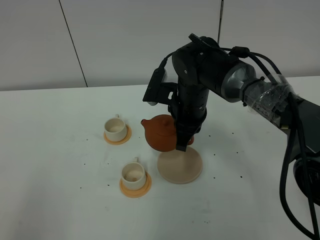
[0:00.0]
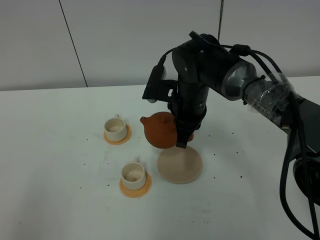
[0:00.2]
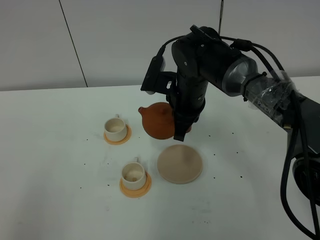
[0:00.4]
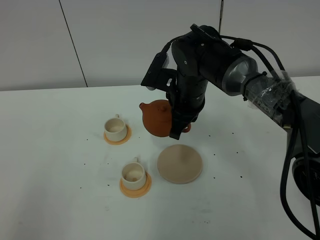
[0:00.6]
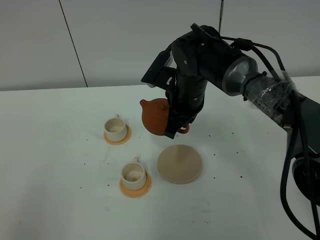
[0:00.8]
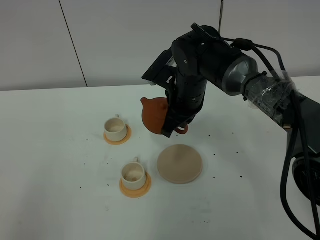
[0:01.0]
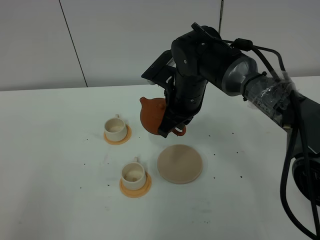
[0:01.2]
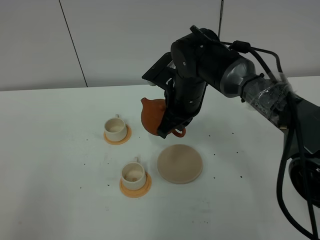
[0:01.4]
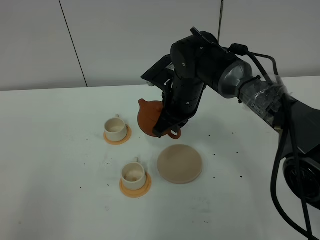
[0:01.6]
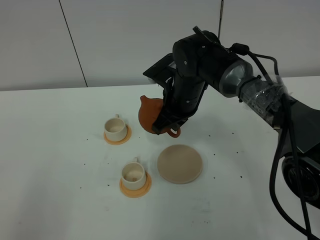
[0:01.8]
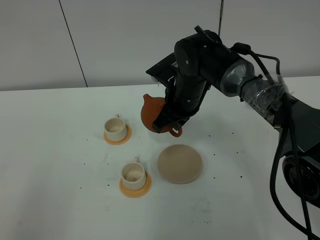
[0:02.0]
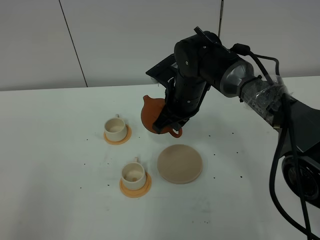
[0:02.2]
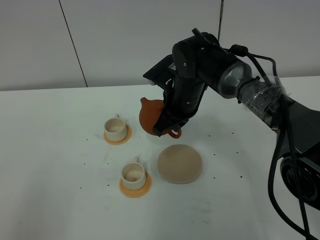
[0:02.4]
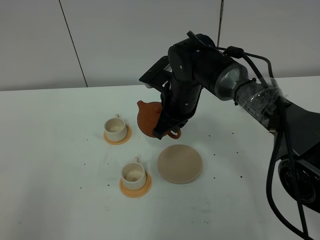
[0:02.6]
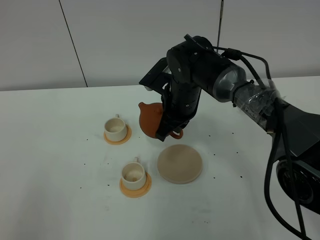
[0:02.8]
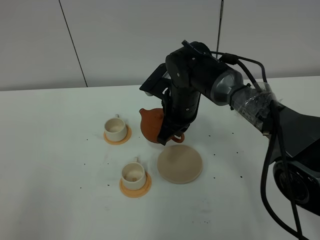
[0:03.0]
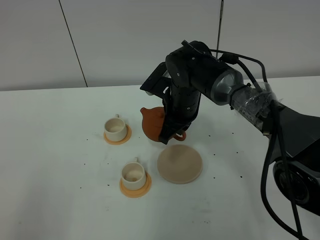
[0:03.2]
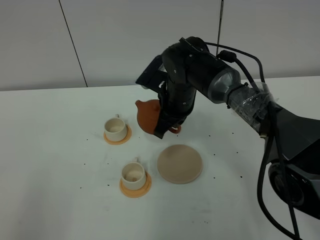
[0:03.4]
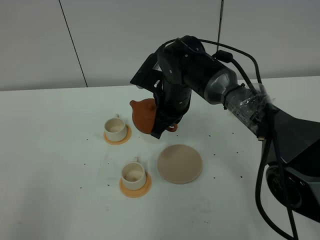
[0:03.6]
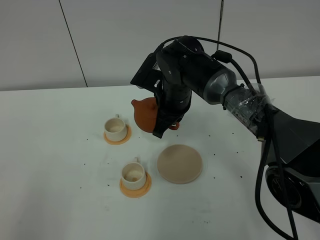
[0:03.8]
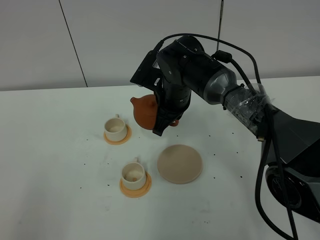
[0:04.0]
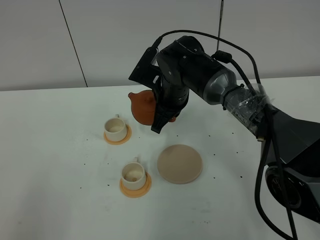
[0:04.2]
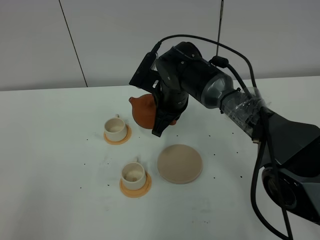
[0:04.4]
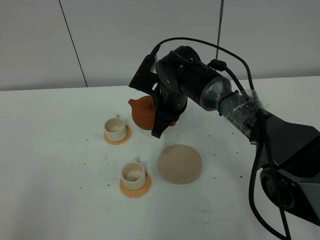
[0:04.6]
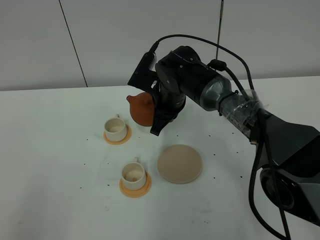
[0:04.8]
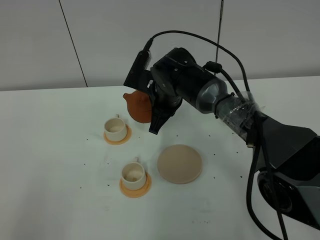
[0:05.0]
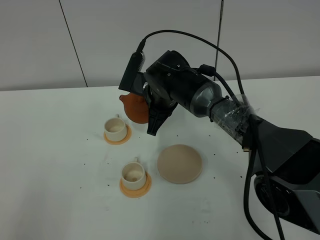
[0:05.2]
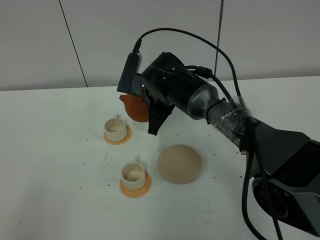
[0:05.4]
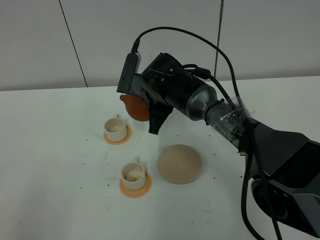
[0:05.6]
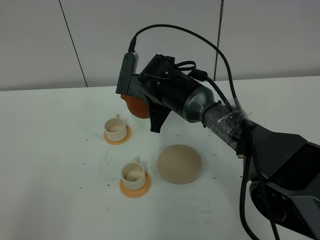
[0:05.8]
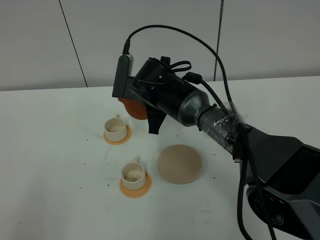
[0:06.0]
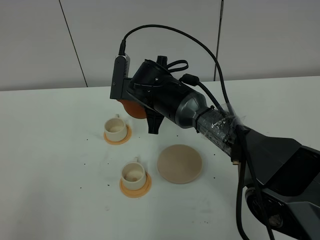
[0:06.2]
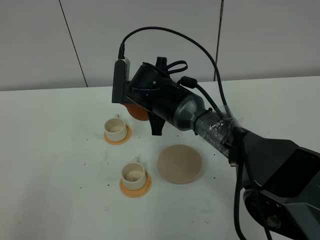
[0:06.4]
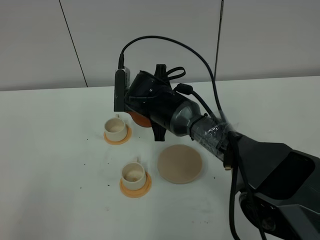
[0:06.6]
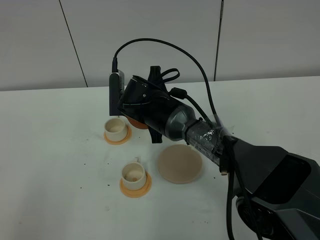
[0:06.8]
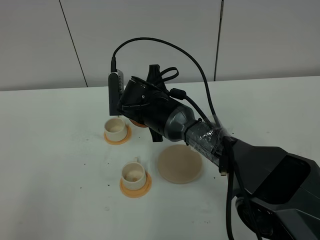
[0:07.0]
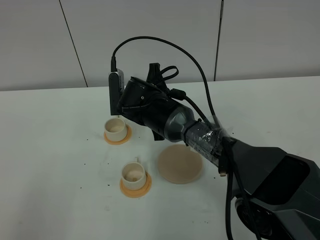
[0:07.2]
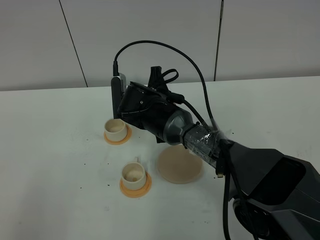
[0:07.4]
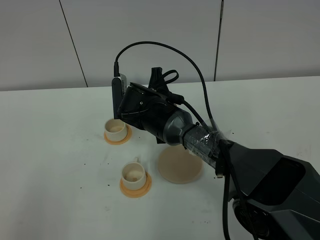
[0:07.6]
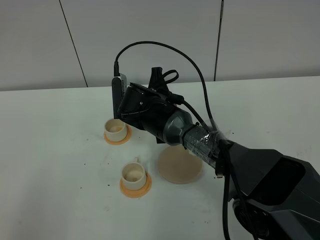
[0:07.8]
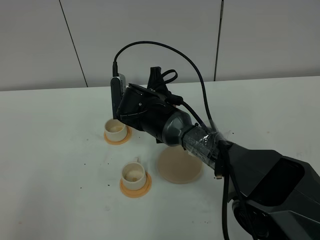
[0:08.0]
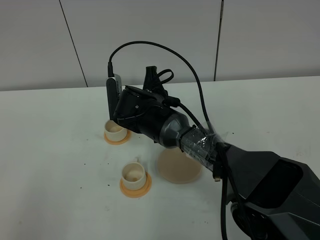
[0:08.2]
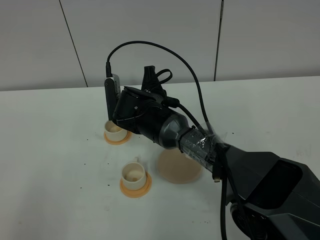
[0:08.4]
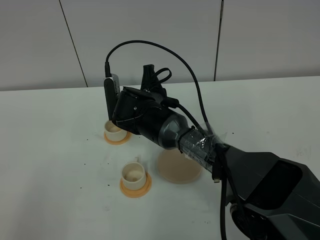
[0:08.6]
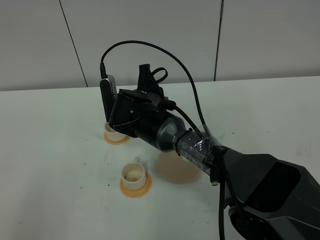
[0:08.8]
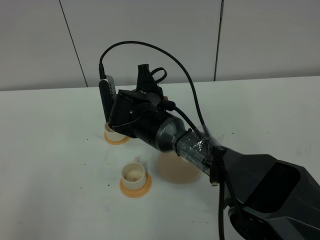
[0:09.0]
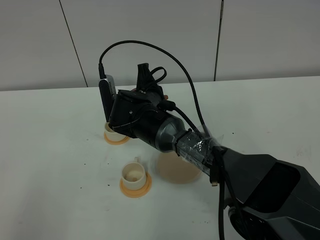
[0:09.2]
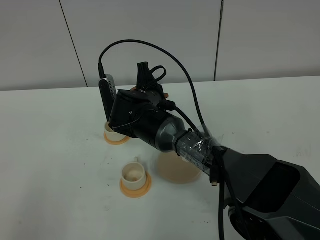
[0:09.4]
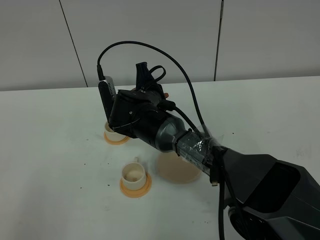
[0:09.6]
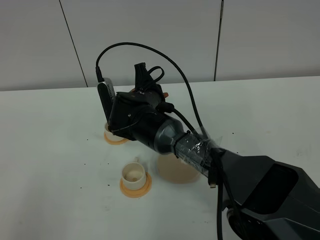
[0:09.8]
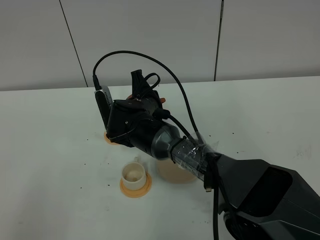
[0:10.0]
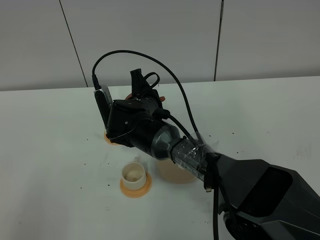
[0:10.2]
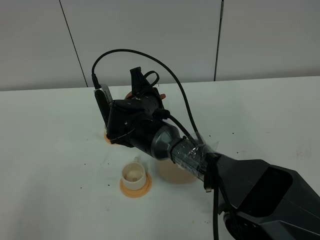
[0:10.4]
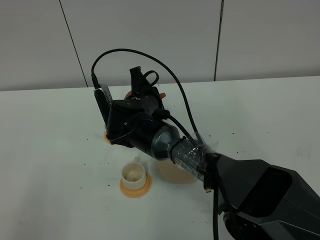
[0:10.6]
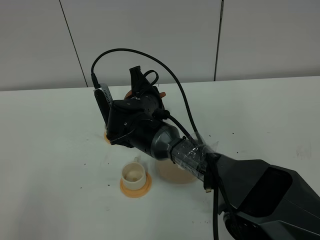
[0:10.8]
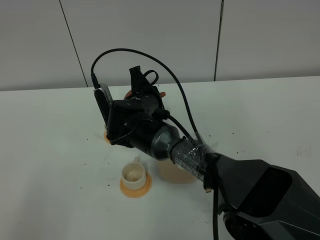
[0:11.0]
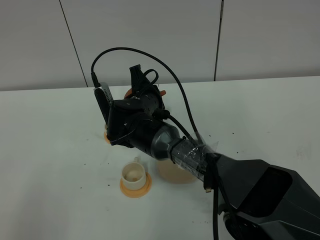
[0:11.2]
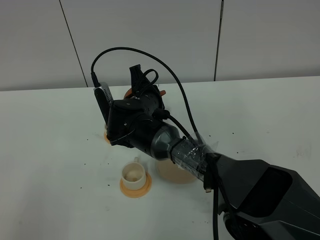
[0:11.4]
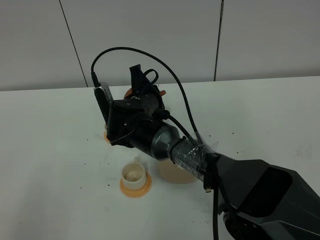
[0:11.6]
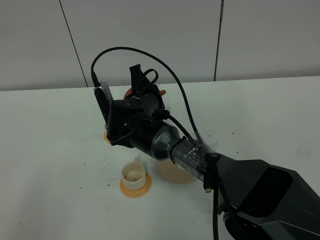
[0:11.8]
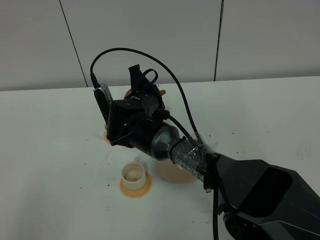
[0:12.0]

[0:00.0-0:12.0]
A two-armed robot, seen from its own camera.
Task of the whole recording: grasp the brown teapot and pour the tea into the two white teacups one by one, put the brown teapot back in its original place.
0:01.6 to 0:04.4: The grippers move only a little.
0:06.0 to 0:07.6: The grippers make only small movements.
0:07.6 to 0:10.4: There are only small adjustments of the grippers.
0:10.4 to 0:12.0: The two grippers keep their place.

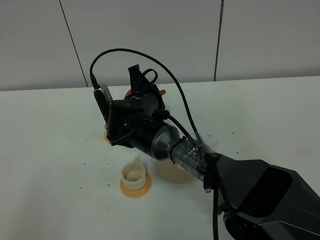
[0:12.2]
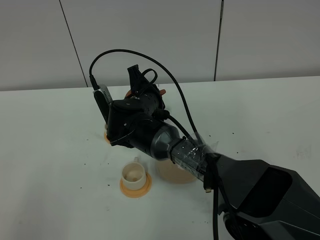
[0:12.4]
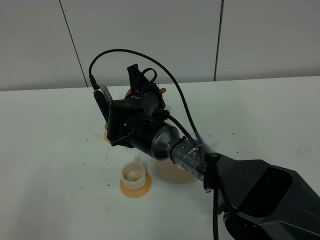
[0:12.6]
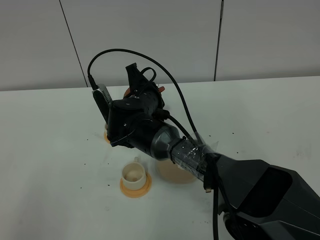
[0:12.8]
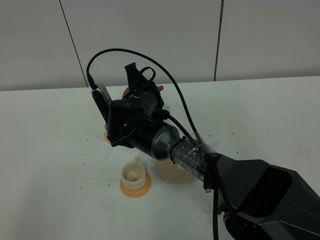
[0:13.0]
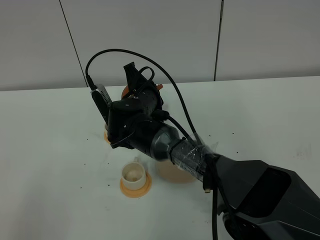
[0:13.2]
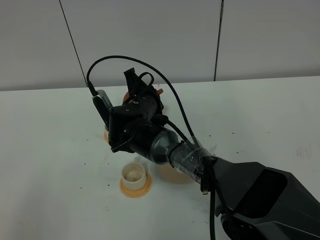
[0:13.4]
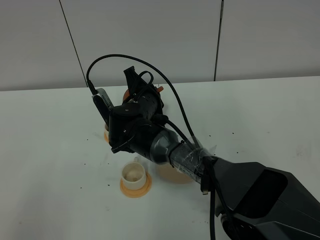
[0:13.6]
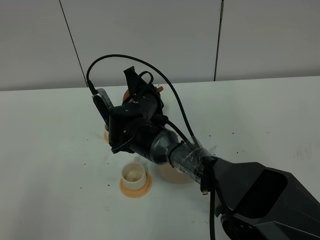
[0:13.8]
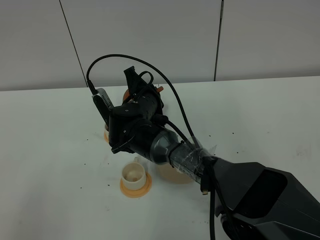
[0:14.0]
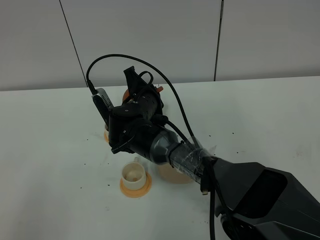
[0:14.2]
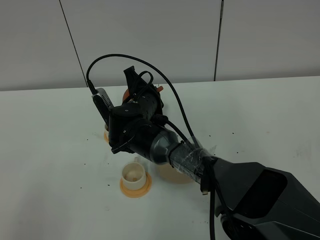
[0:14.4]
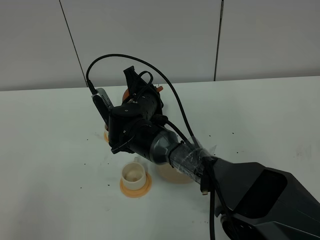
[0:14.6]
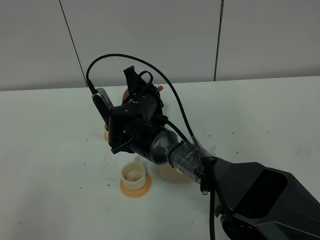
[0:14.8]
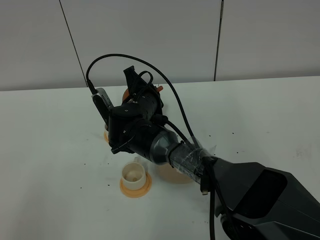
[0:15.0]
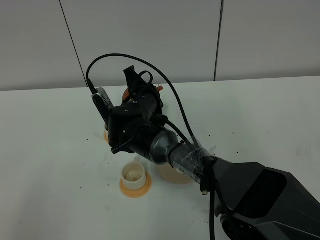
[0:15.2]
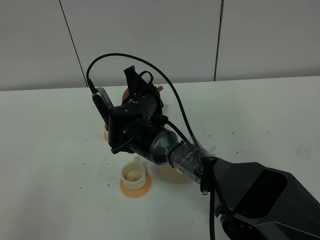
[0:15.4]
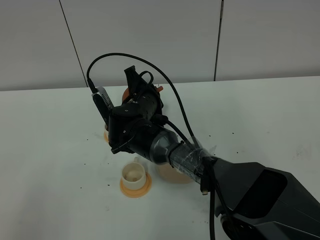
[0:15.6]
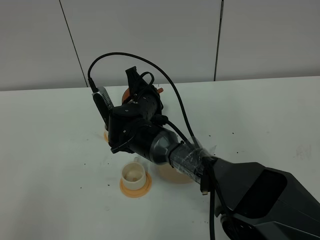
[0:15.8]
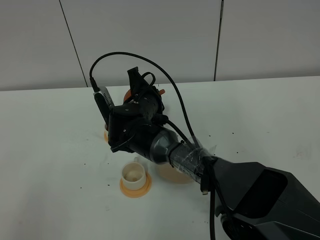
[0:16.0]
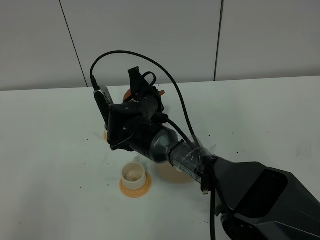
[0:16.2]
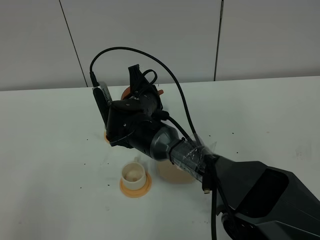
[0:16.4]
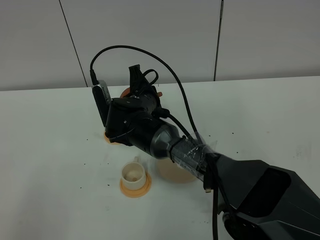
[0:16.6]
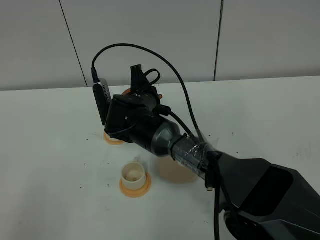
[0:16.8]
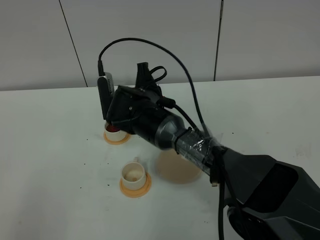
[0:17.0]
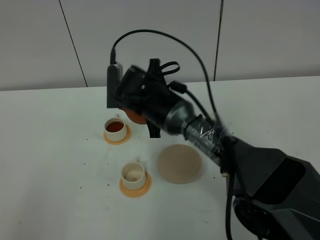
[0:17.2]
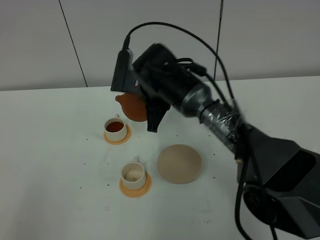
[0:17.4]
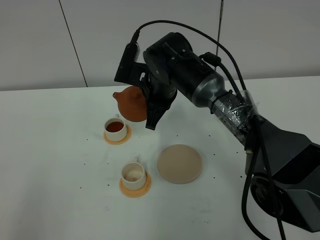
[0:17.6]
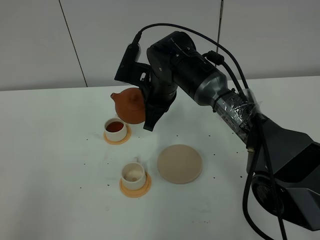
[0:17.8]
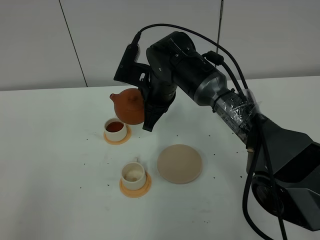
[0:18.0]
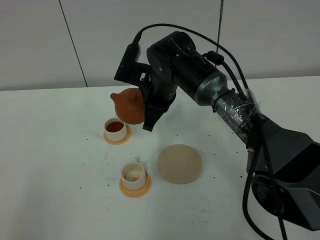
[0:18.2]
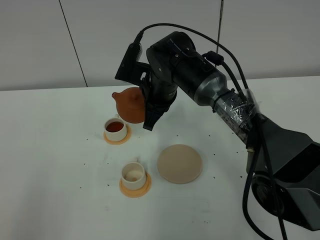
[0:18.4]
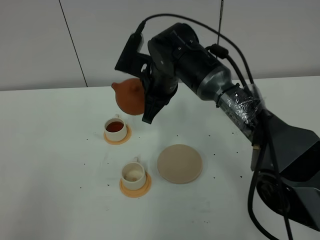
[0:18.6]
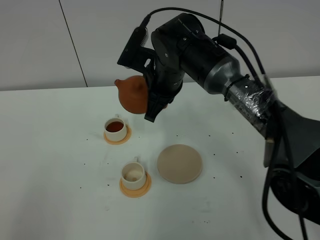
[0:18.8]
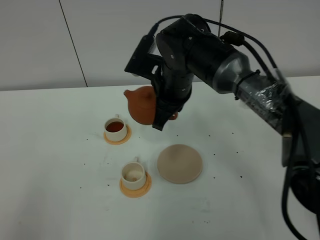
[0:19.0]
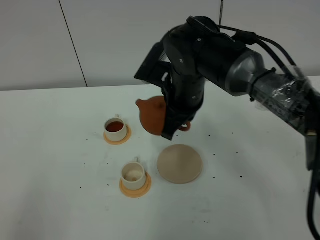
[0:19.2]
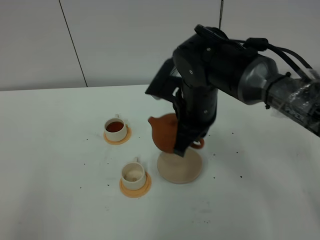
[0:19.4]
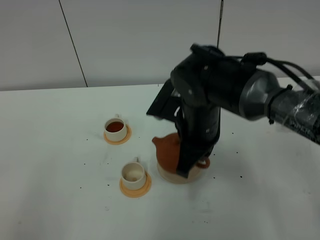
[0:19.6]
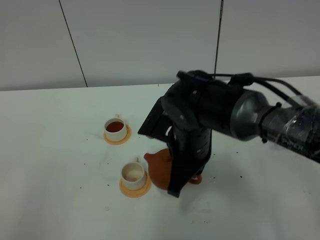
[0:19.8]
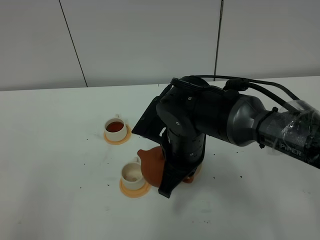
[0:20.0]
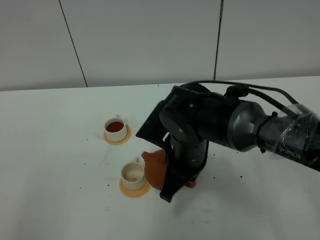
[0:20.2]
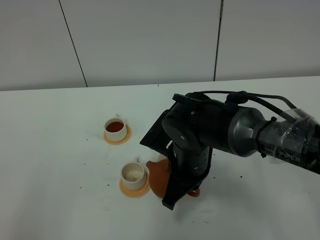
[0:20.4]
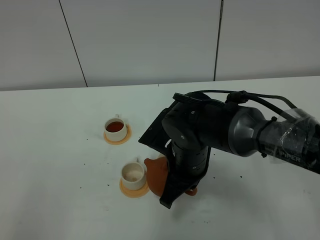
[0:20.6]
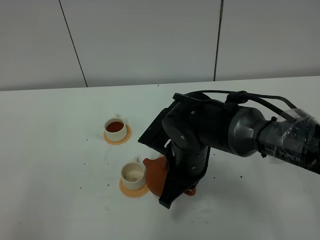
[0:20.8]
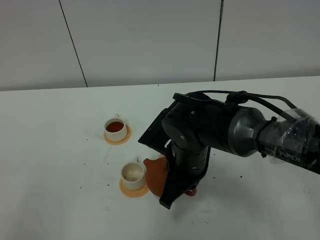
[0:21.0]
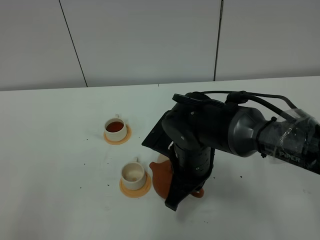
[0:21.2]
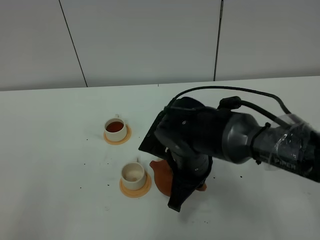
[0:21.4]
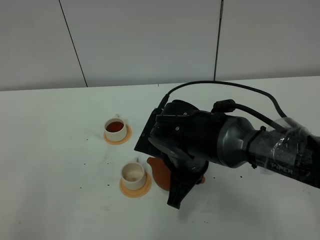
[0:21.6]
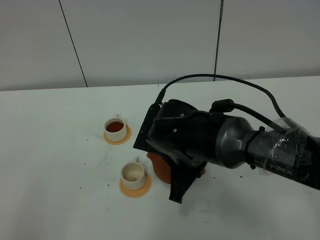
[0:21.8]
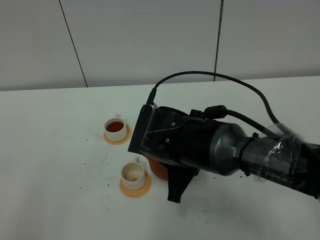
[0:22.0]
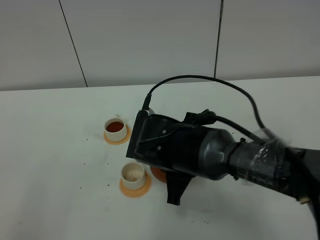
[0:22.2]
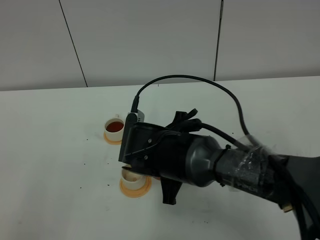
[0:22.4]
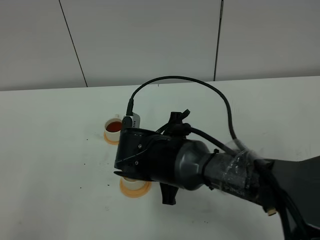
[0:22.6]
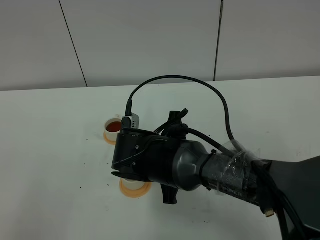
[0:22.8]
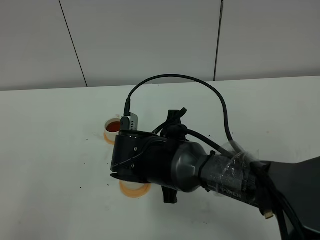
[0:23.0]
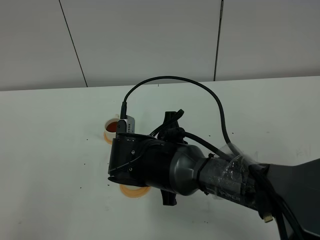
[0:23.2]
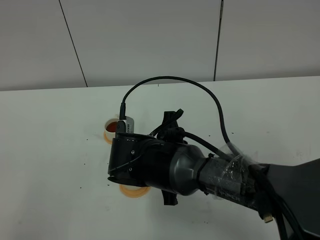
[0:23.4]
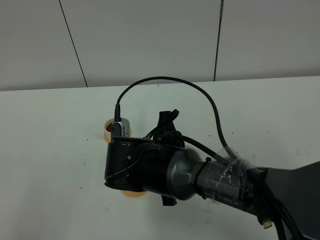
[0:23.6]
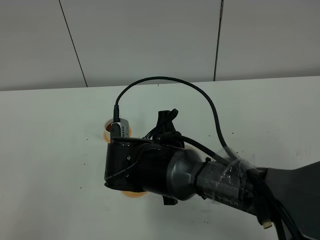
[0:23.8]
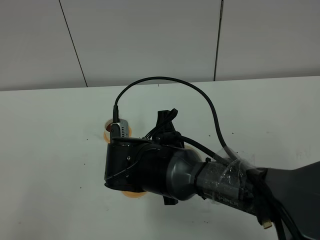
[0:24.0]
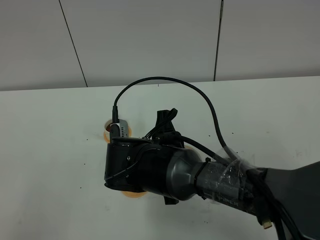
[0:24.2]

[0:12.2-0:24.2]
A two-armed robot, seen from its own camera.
Task of the whole recording: grasp the brown teapot and pour the tea into the two white teacups one by one, put the brown teapot back in its original place.
0:12.2 to 0:13.8: The grippers make only small movements.
0:13.8 to 0:15.2: The two grippers keep their place.
0:15.2 to 0:16.6: The grippers move only a little.
0:16.6 to 0:18.2: The right gripper is displaced upward and to the right by about 10 cm.
0:18.2 to 0:19.8: The right gripper moves backward, about 15 cm.
0:19.8 to 0:21.2: The grippers move only a little.
0:22.6 to 0:24.2: The grippers move only a little.
